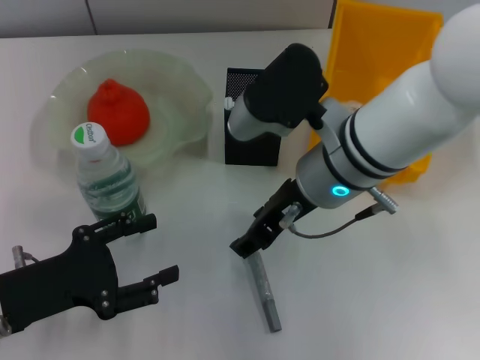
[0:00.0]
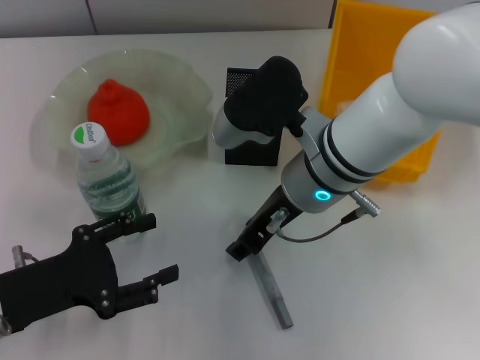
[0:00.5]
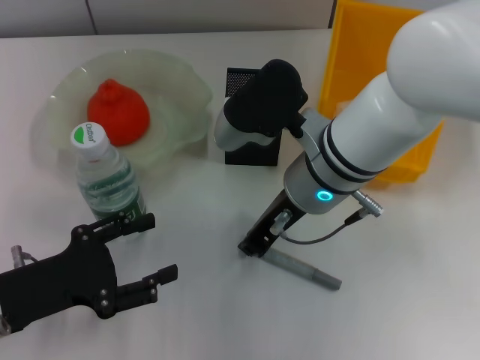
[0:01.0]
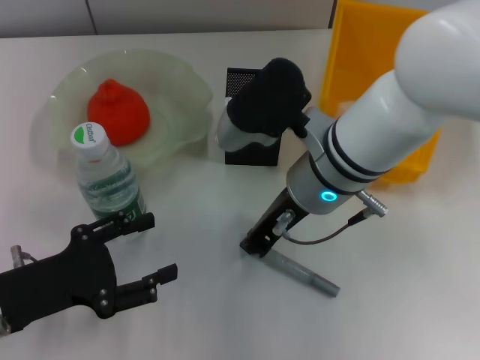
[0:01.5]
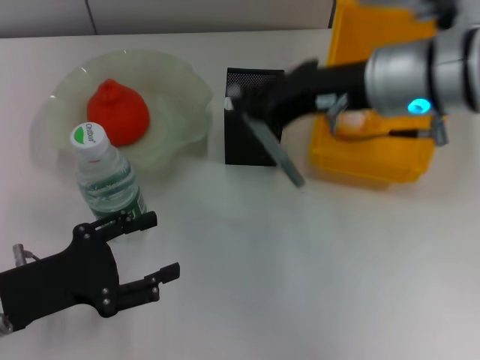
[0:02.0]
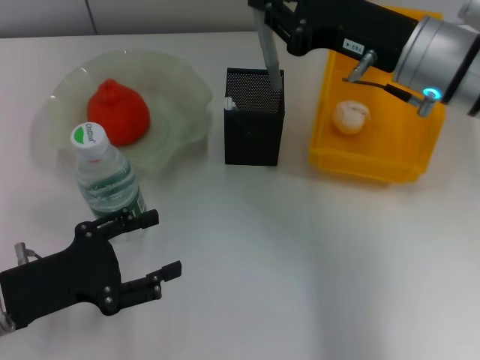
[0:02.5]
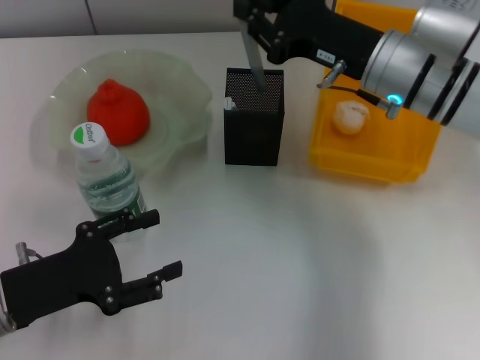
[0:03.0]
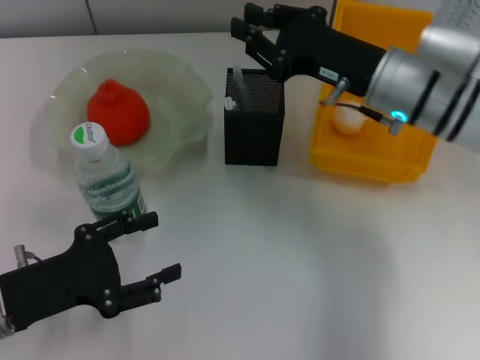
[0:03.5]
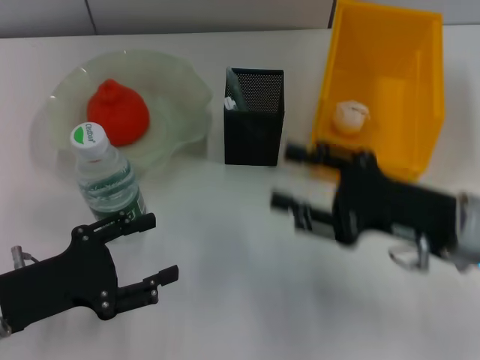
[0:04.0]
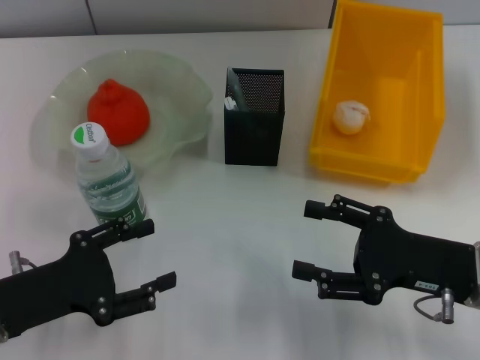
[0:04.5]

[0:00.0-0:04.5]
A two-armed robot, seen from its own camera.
Step, 0:01.5 to 0:03.5: Place the gray glue into the pen holder with the right hand.
0:00.0 to 0:02.0: The right gripper goes approximately 10 cm upward and to the right, and closes.
0:02.0 to 0:04.5: The right gripper moves downward, backward and to the right, approximately 20 cm, and opens its fingers.

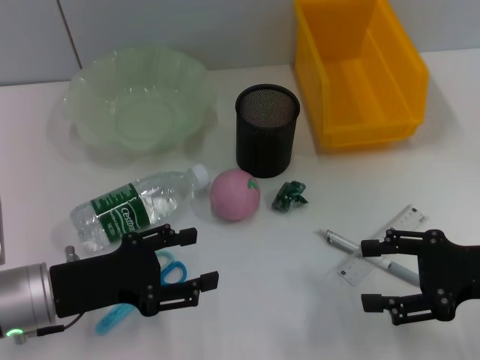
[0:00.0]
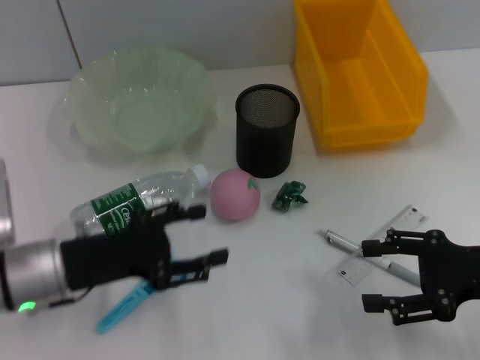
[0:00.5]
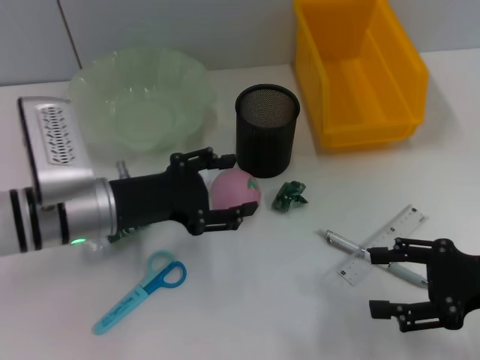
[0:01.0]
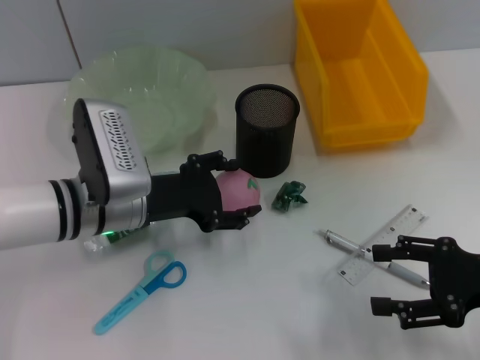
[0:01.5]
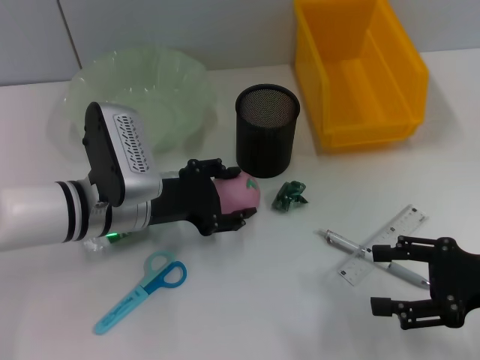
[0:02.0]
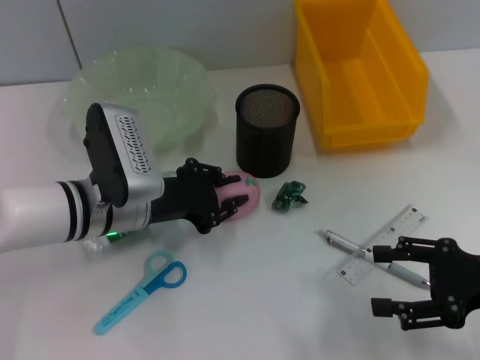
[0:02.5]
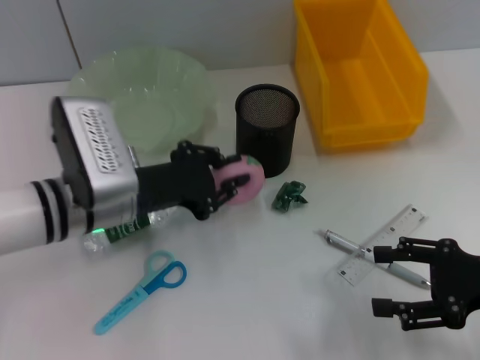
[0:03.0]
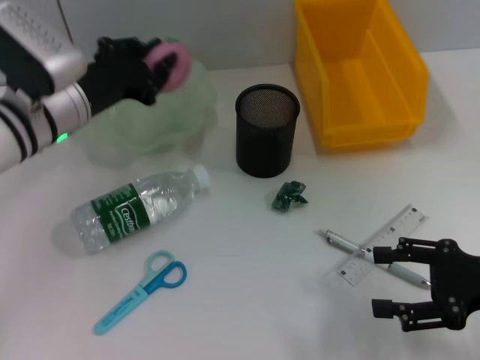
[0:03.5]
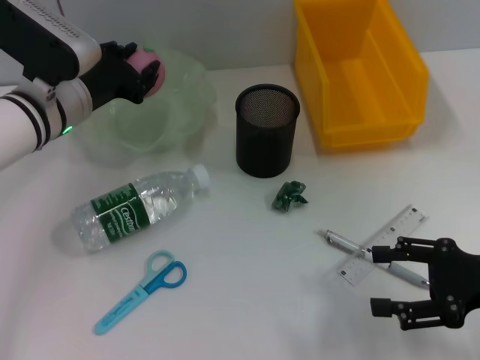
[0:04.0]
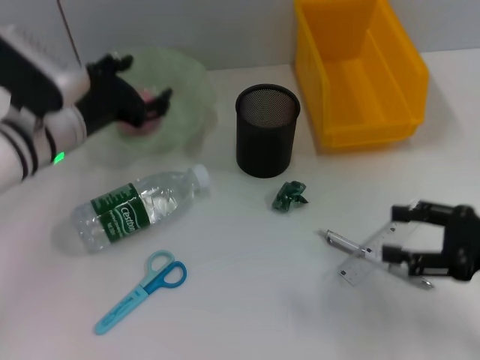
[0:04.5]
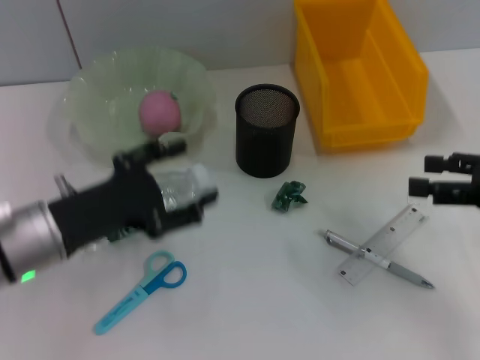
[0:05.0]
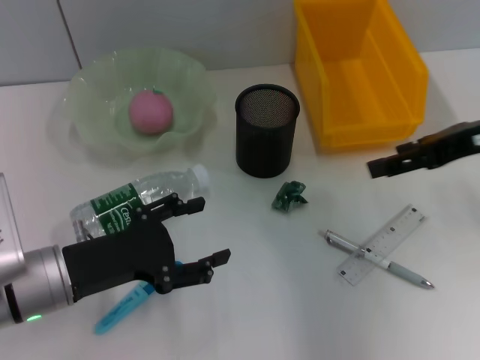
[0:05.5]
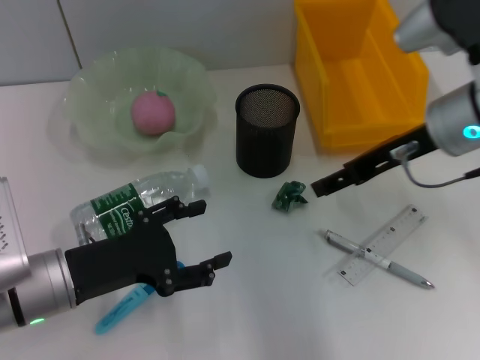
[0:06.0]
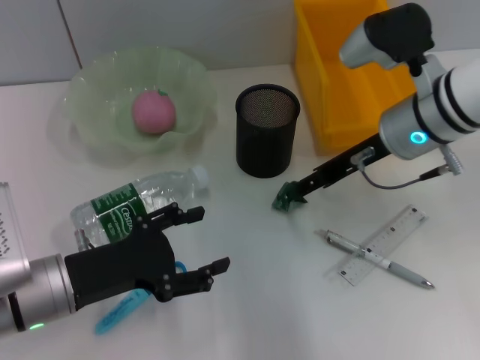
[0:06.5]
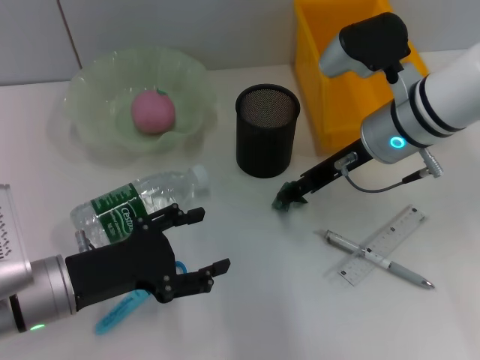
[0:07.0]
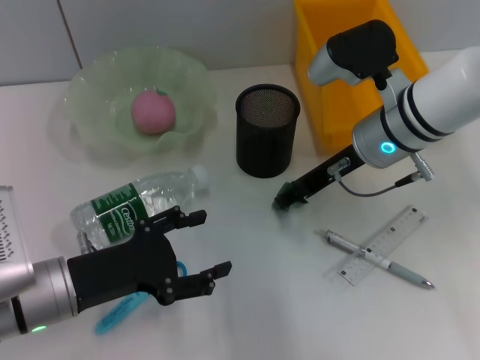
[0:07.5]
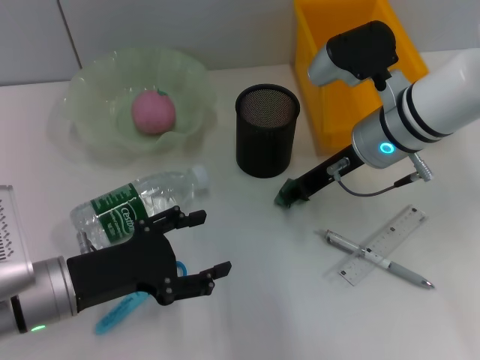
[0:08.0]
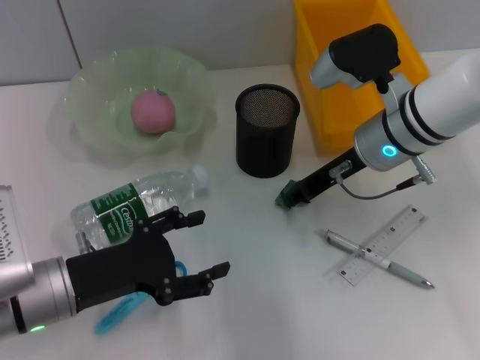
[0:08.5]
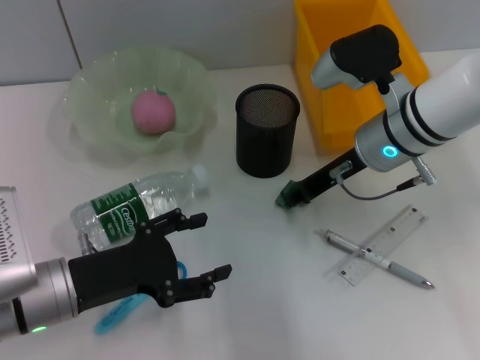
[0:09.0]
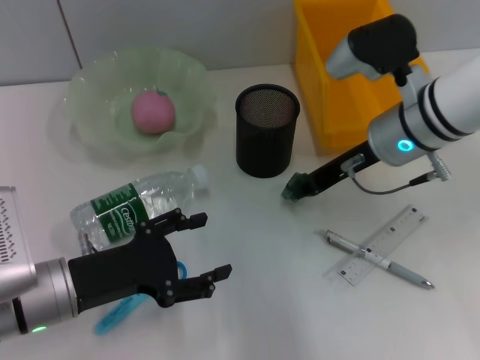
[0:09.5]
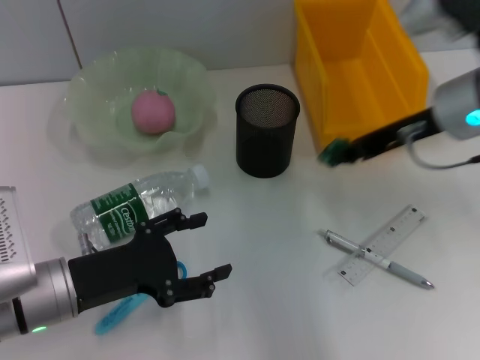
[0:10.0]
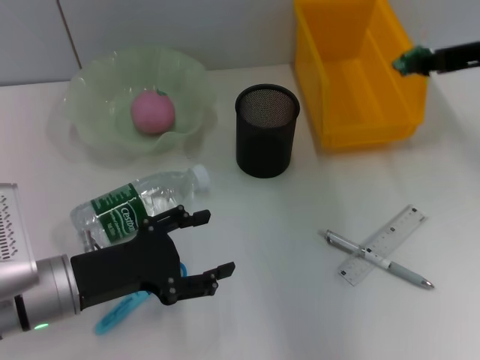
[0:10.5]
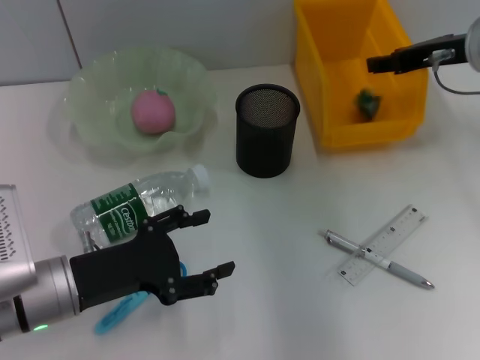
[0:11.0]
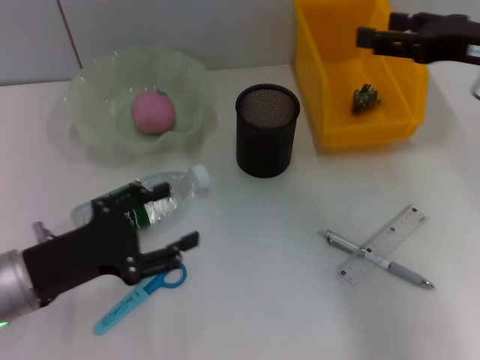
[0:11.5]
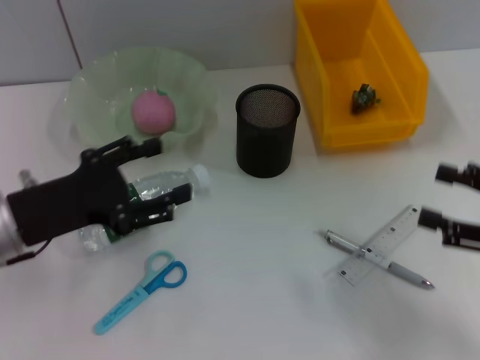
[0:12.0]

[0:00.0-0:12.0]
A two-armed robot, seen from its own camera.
Step, 0:00.0 to 0:02.0: Grab the peach with the left hand.
Step, 0:03.0 to 0:04.0: Place the peach into the fruit bowl with the left hand.
Step, 0:04.5 to 0:09.0: Grab the plastic with the right hand.
Step, 0:09.5 to 0:11.0: Place the plastic into the trash can with the right hand.
0:00.0 to 0:02.0: The left gripper travels forward and to the right by some 10 cm.
0:02.0 to 0:04.0: The left gripper heads forward, covering roughly 5 cm, and closes its fingers.
0:04.0 to 0:06.0: The left gripper travels backward by approximately 15 cm, and opens up. Meanwhile the right gripper travels forward, to the left and upward by roughly 20 cm.
0:06.0 to 0:08.0: The right gripper travels to the left by some 5 cm, and closes up.
0:08.0 to 0:10.0: The right gripper shifts some 10 cm to the right and upward.
0:10.0 to 0:12.0: The left gripper shifts some 5 cm upward, while the right gripper heads backward, to the right and downward, covering about 20 cm, and opens up.

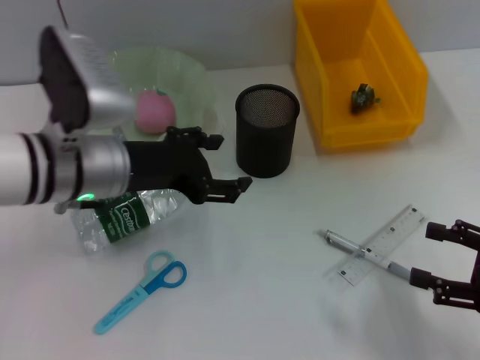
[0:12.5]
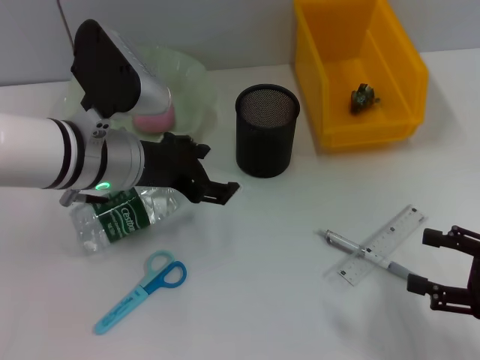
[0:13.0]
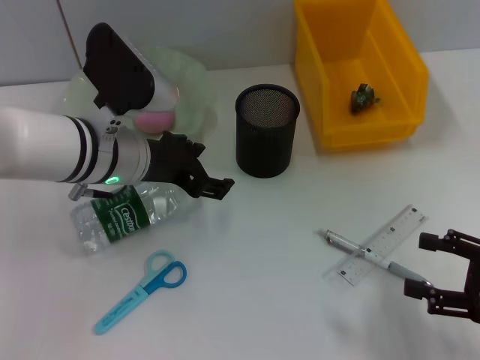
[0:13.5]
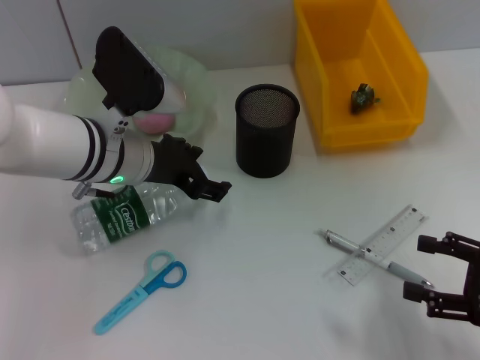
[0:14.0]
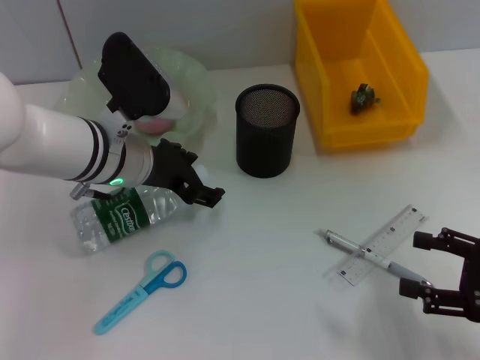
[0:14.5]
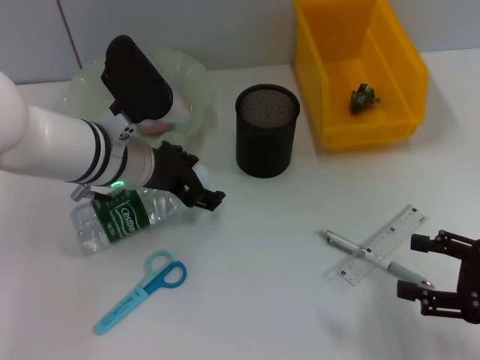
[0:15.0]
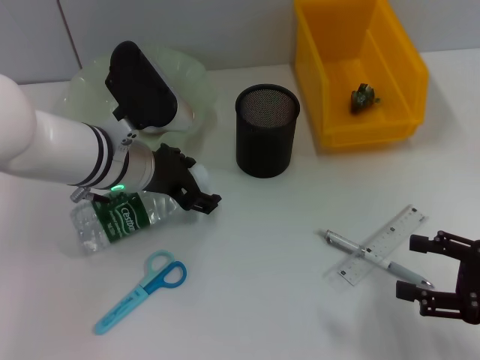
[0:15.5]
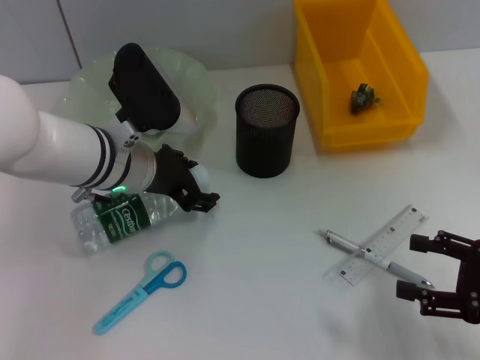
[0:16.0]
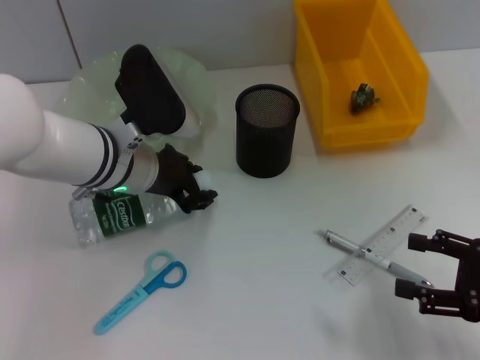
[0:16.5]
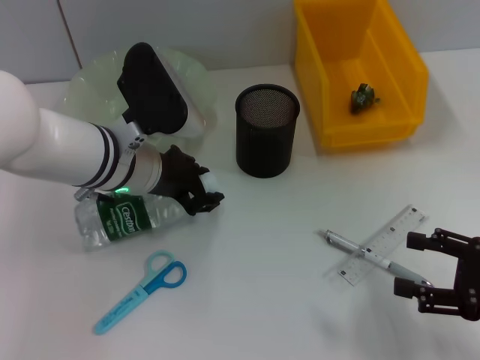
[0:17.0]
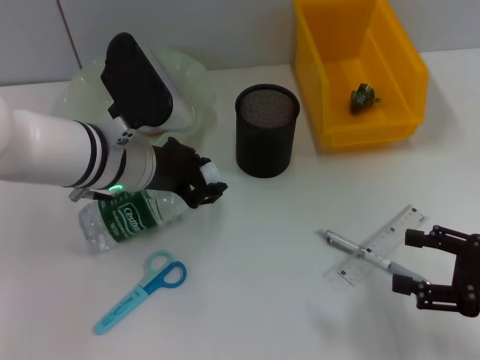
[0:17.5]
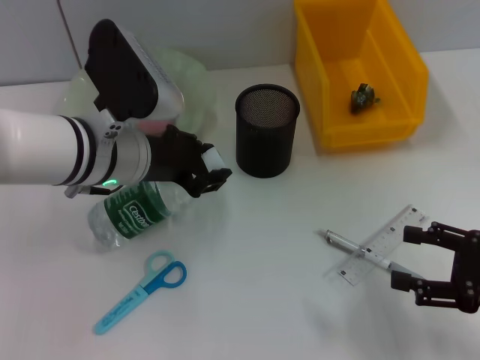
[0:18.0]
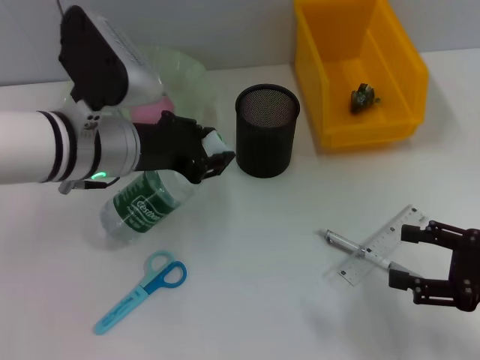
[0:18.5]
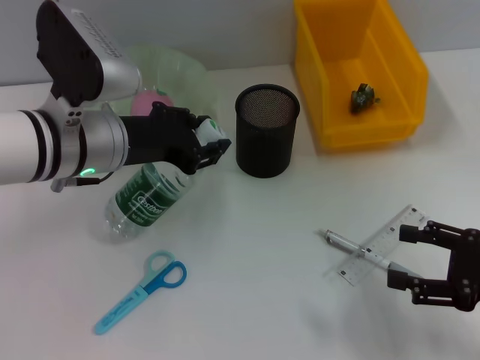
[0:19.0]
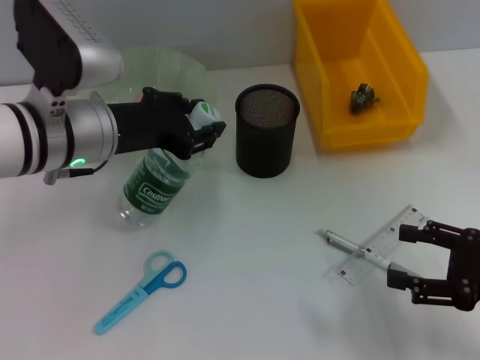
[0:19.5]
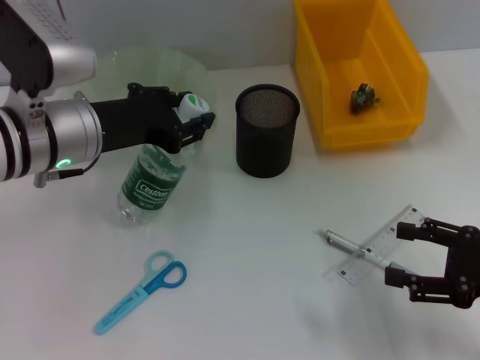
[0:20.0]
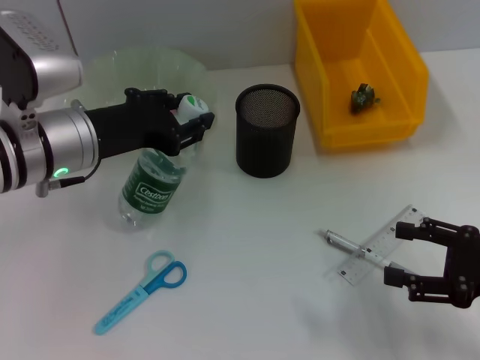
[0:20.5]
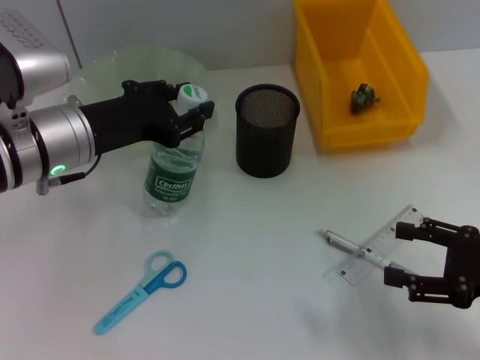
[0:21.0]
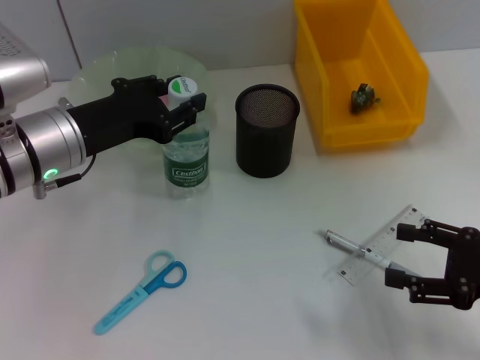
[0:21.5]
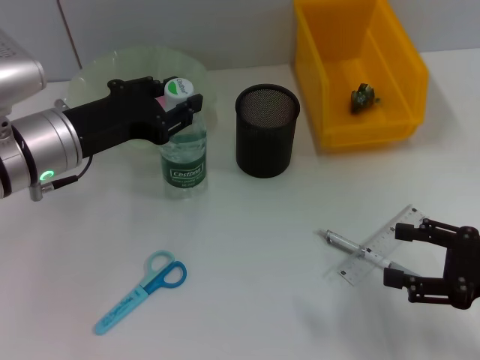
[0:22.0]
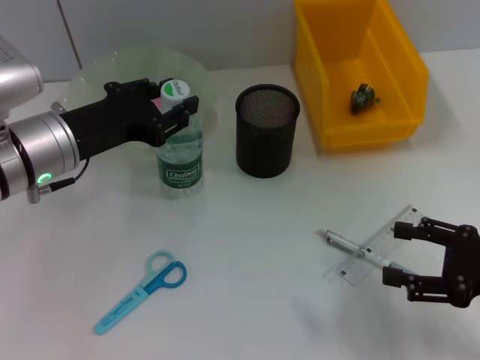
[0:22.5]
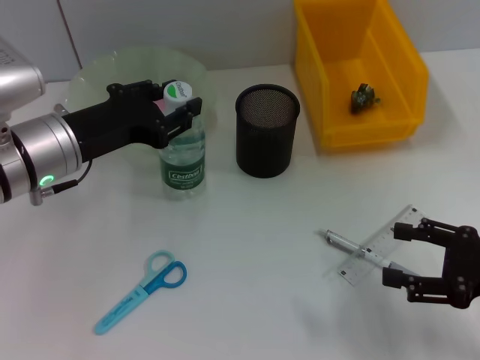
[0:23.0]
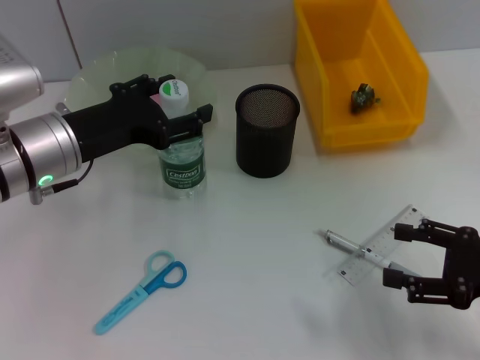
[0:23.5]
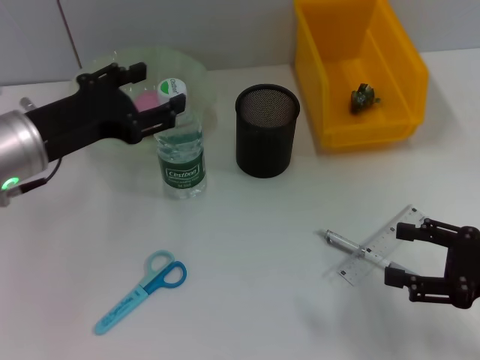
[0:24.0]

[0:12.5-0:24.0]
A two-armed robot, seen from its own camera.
Step, 0:12.5 to 0:16.0: Grab the water bottle with the left hand.
Step, 0:17.0 to 0:23.0: Place the water bottle on the table with the left hand.
0:12.5 to 0:14.5: The left gripper moves roughly 5 cm.
0:14.5 to 0:16.5: The left gripper closes its fingers.
0:16.5 to 0:18.5: The grippers move only a little.
0:18.5 to 0:20.0: There are only small adjustments of the grippers.
0:20.0 to 0:22.0: The grippers move only a little.
0:22.0 to 0:24.0: The left gripper opens up.
